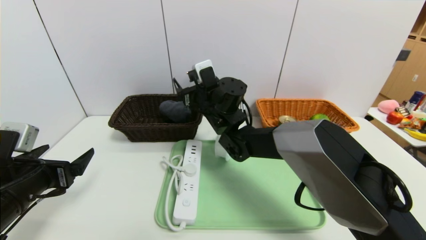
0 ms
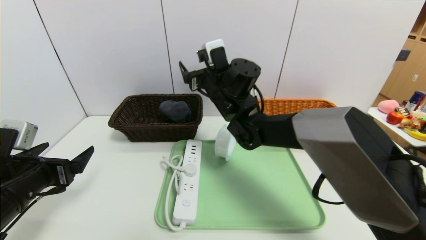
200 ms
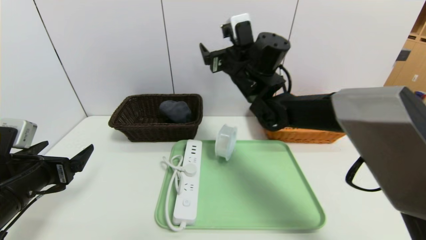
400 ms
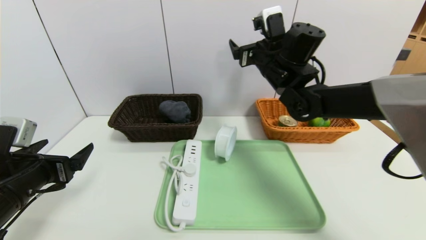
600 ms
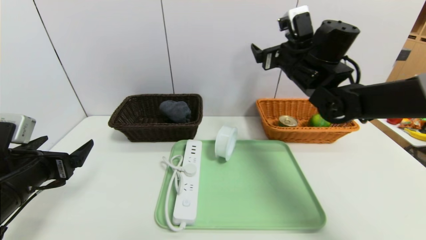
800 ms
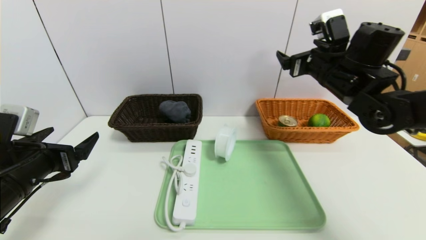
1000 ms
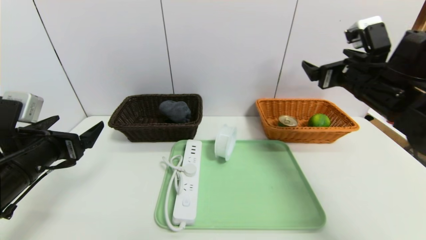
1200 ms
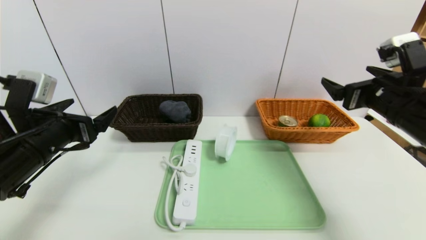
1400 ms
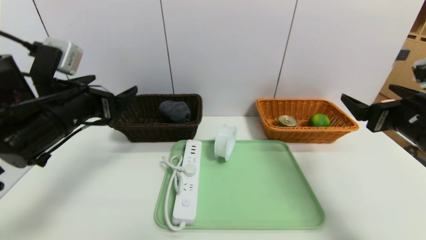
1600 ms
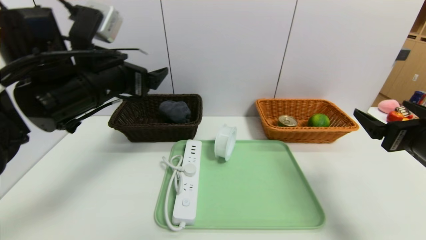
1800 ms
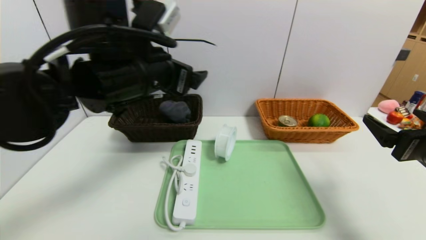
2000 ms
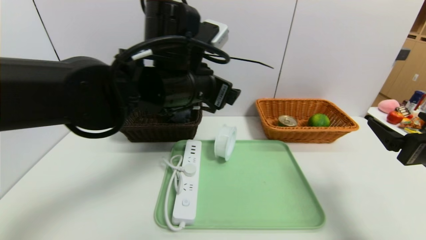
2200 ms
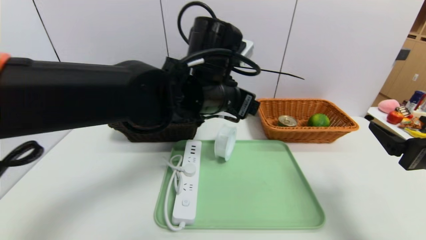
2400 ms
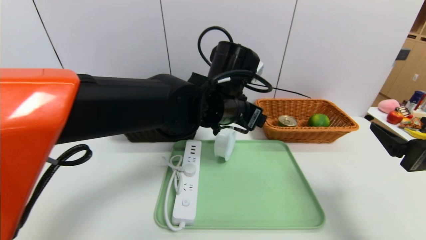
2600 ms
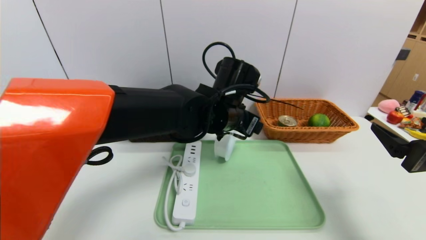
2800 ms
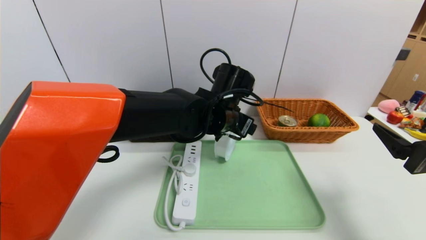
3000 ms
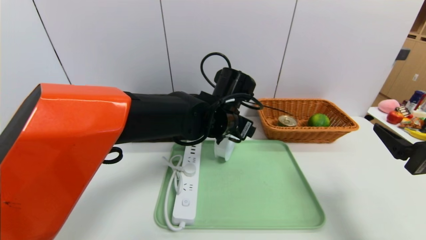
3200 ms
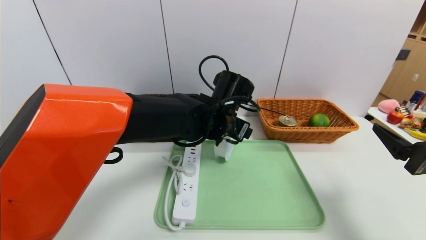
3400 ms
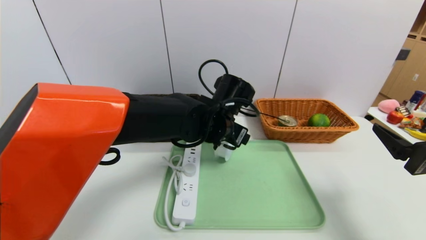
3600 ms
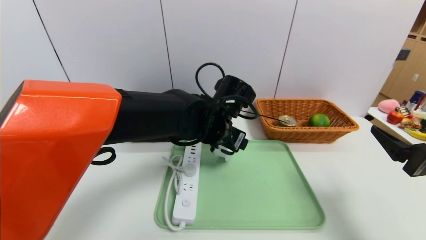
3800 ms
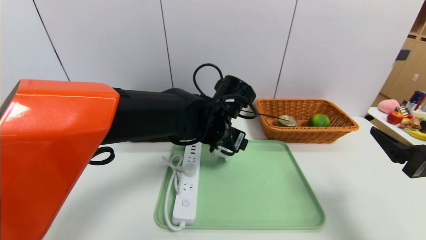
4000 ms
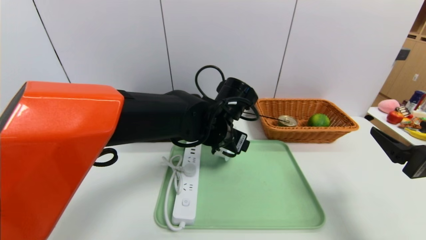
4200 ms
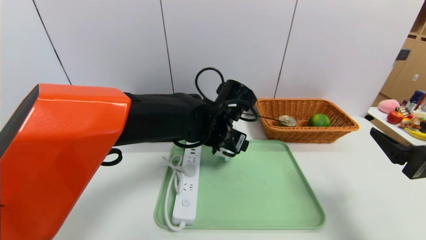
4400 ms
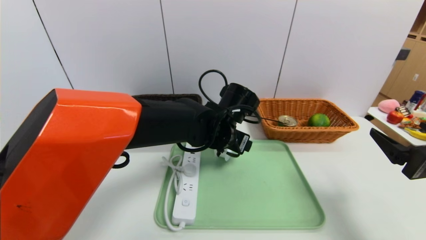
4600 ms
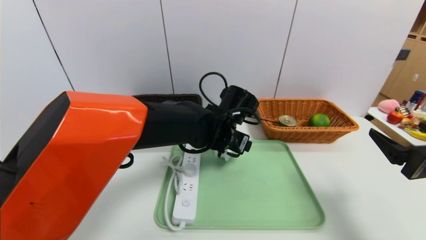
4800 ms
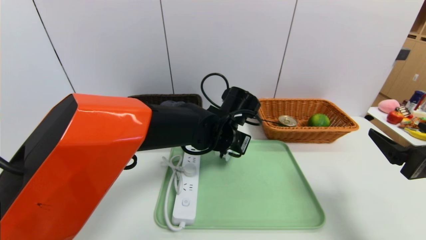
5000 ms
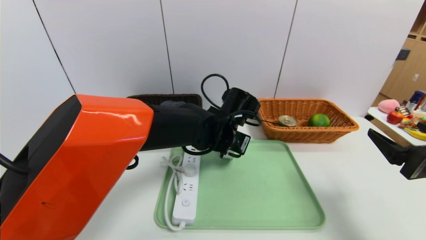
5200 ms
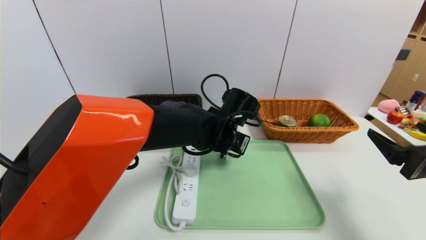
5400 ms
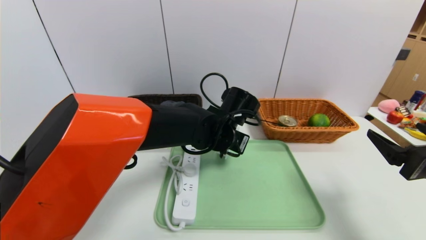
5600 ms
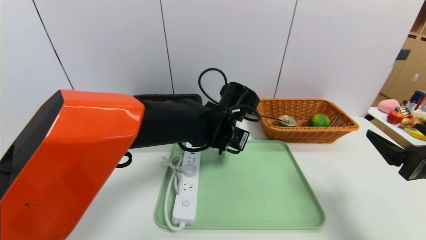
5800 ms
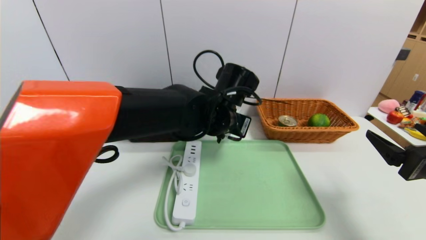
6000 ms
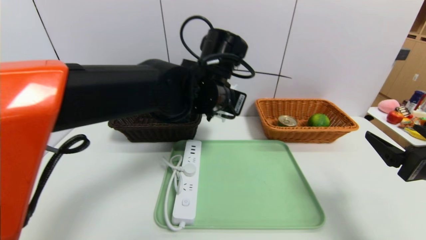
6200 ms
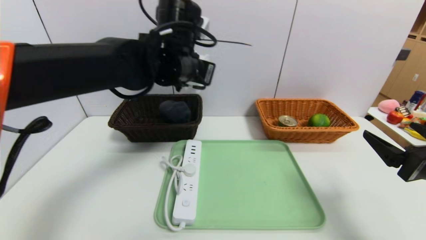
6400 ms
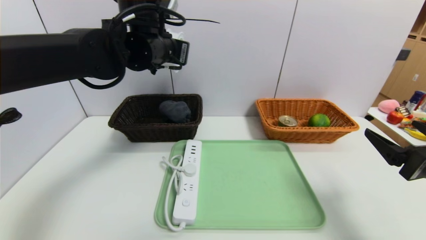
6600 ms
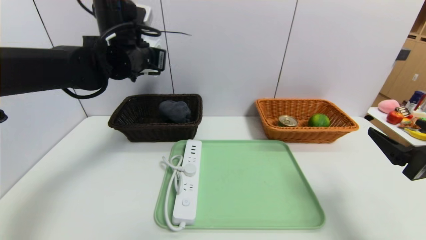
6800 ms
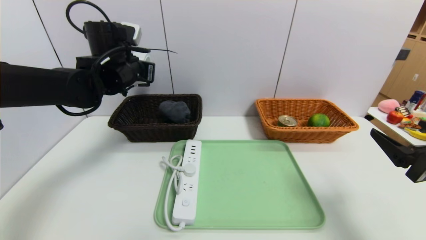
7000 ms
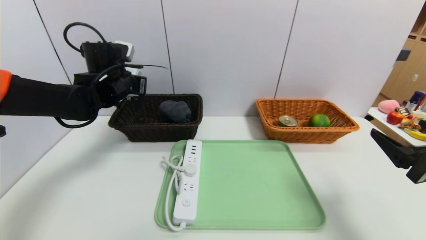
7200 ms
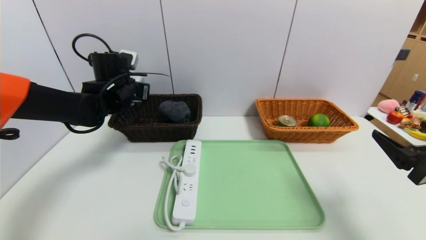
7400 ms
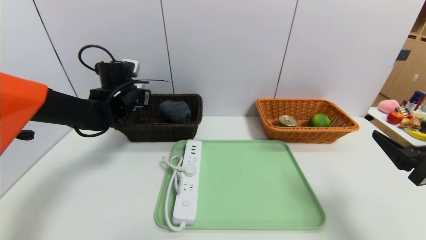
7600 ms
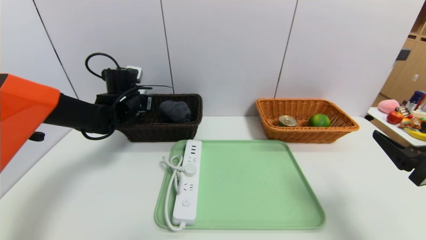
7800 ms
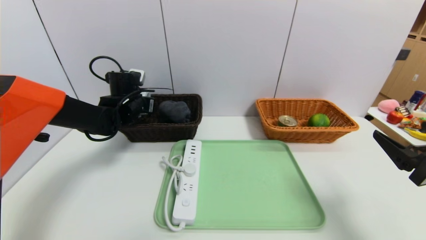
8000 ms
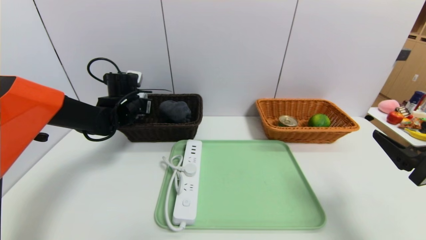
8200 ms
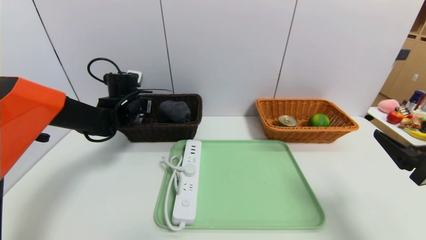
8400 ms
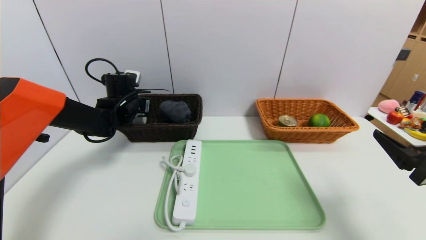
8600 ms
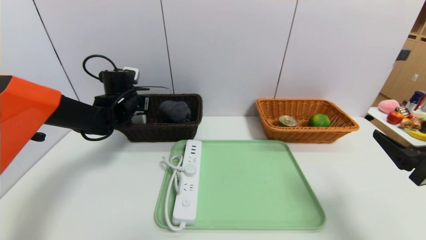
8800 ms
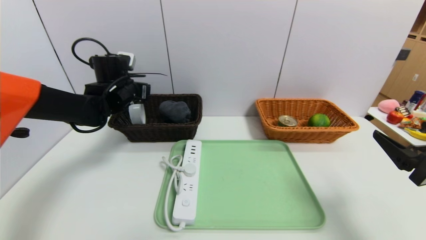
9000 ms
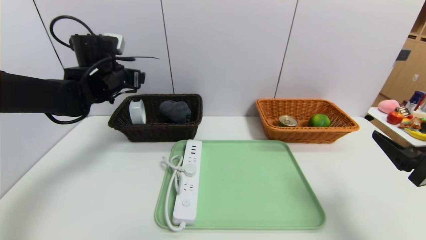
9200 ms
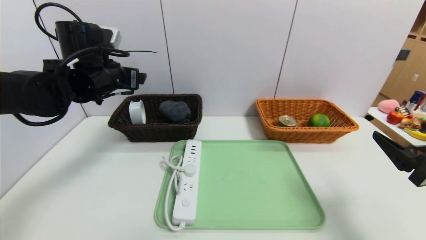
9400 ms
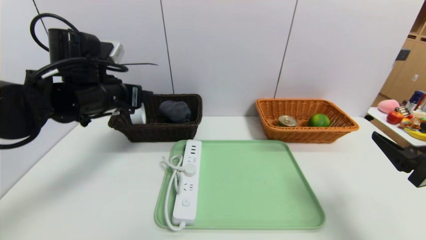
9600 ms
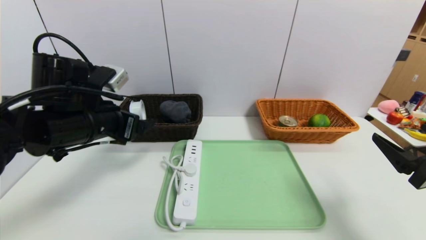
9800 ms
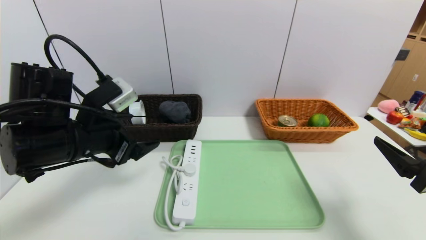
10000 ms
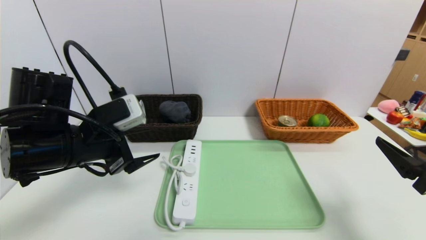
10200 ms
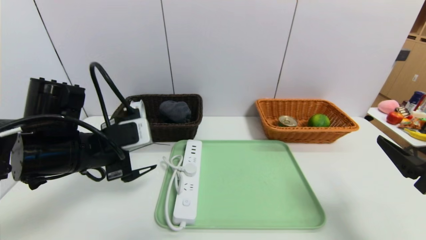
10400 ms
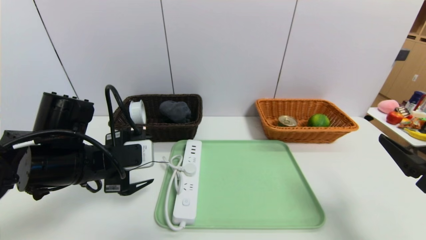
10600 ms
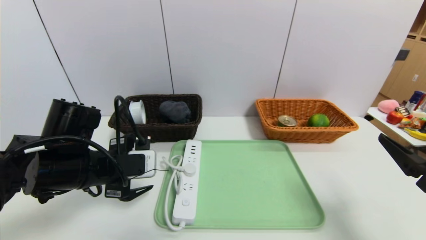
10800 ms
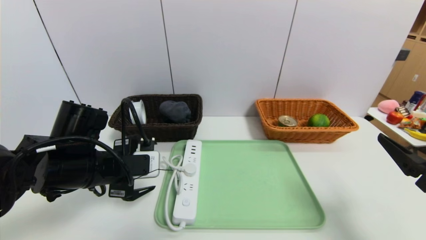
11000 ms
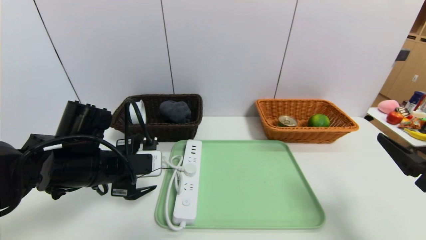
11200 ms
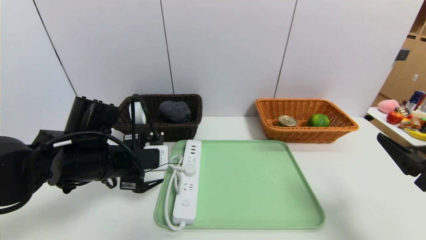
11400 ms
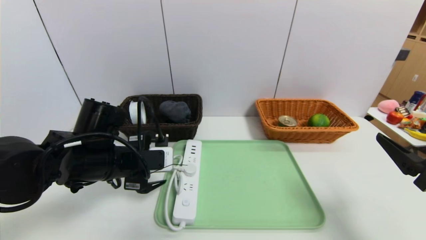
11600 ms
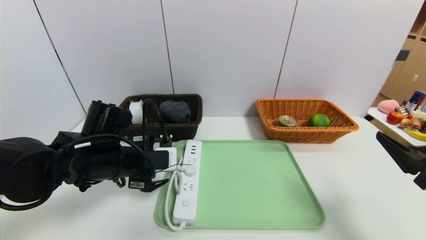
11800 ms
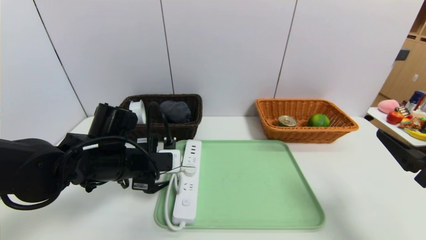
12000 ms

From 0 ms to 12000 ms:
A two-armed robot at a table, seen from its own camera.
Task of the whole recording: place the food in the right basket with the right gripper, and place the non food items in the left basket with the left gripper.
Step, from 0 ms to 8600 ms: Grasp the tape and put it in the left basket.
From 0 ms to 1600 ms: The right gripper moves to the right and backward, some 35 cm. The left gripper heads upward, to the right and forward, covering approximately 15 cm.
From 1600 ms to 3000 ms: The right gripper goes some 5 cm backward; the left gripper heads to the right, covering some 25 cm.
From 3000 ms to 4400 ms: The grippers make only small movements.
From 4400 ms to 6000 ms: The left gripper closes its fingers.
From 6000 ms to 7600 ms: The left gripper is displaced to the left and forward by roughly 25 cm.
From 7600 ms to 9000 ms: The left gripper opens its fingers.
From 9000 ms to 10400 ms: The left gripper moves backward, roughly 20 cm.
From 10400 ms to 12000 ms: The left gripper goes approximately 5 cm downward.

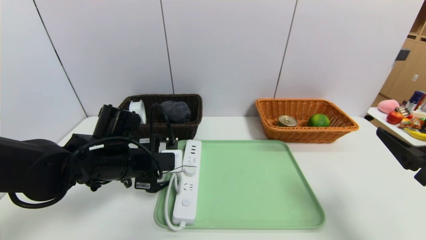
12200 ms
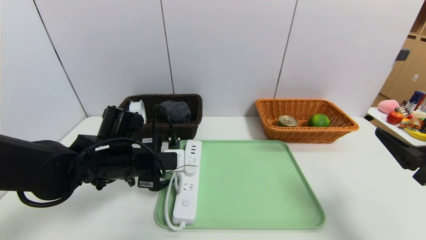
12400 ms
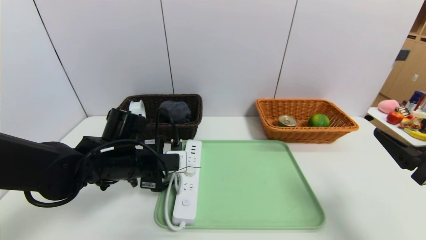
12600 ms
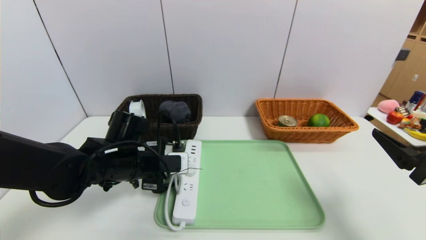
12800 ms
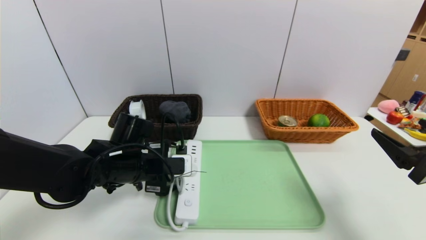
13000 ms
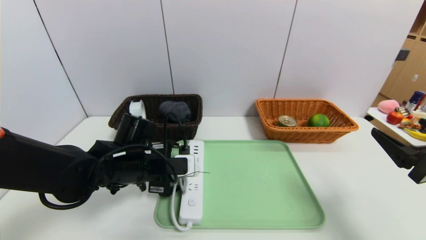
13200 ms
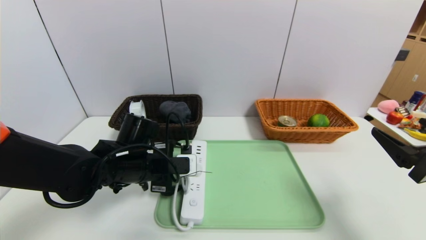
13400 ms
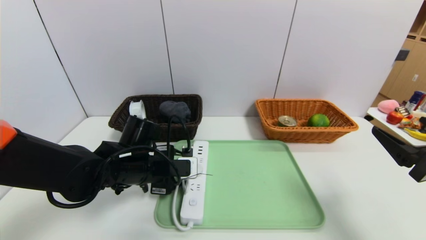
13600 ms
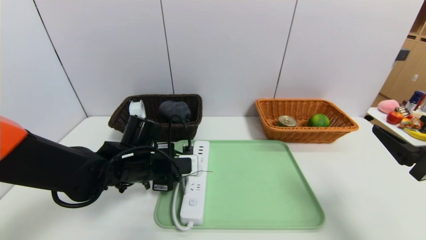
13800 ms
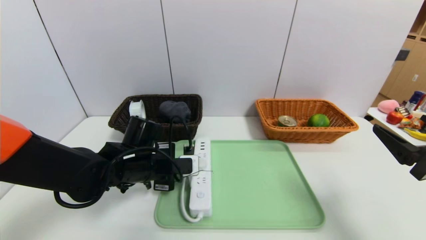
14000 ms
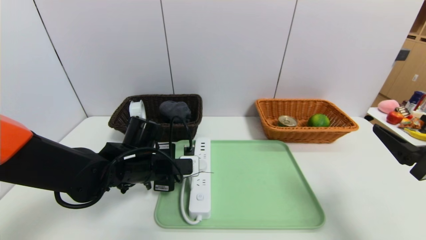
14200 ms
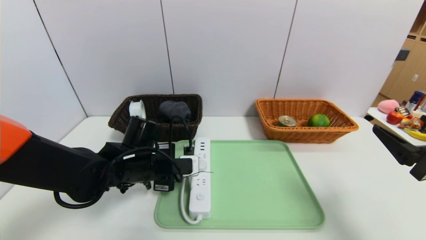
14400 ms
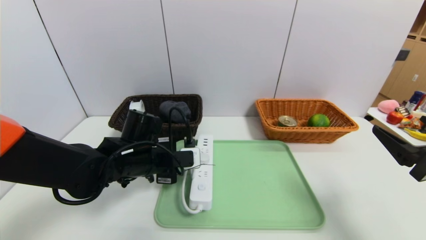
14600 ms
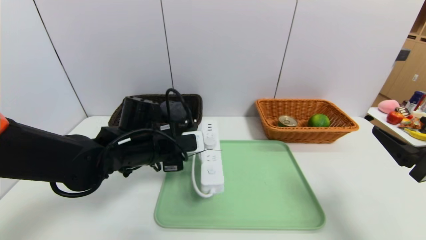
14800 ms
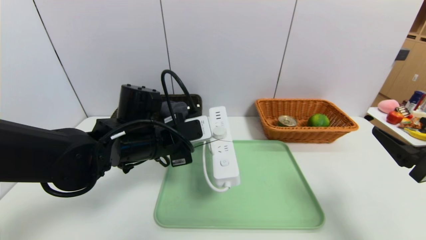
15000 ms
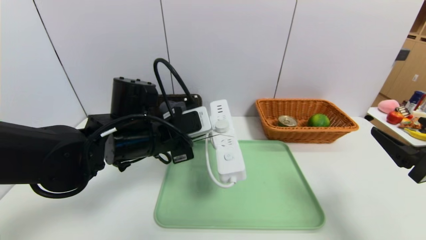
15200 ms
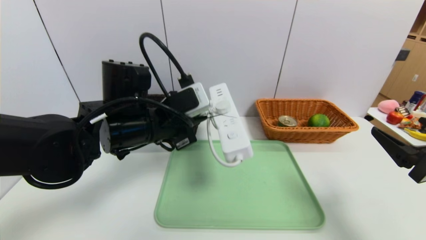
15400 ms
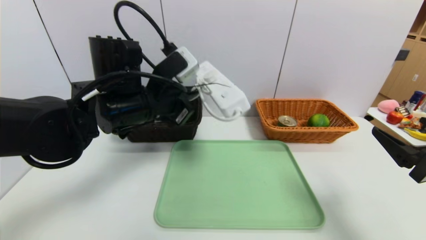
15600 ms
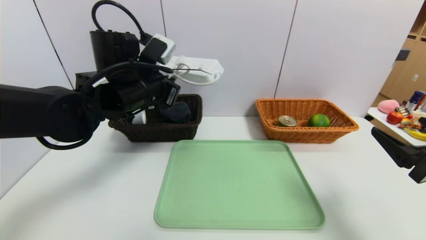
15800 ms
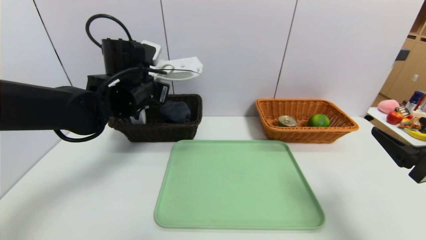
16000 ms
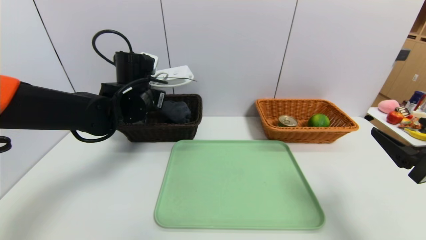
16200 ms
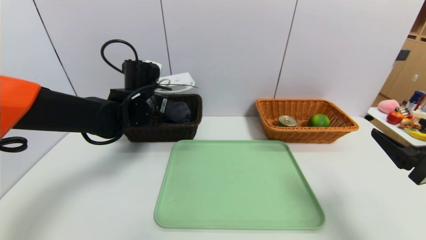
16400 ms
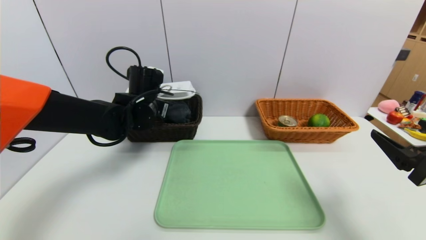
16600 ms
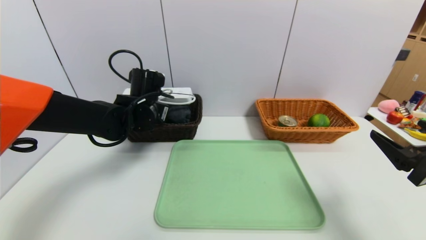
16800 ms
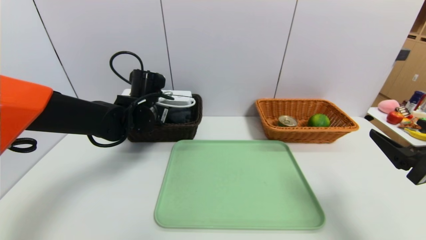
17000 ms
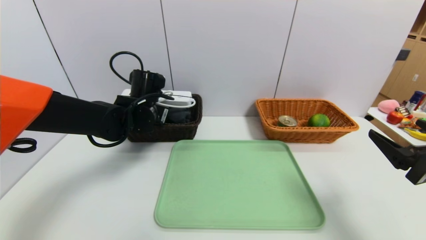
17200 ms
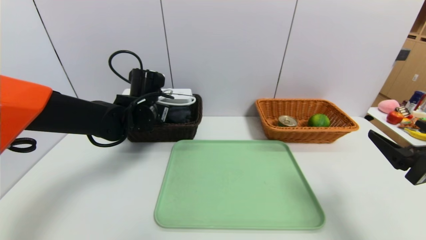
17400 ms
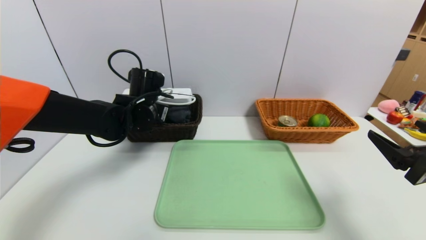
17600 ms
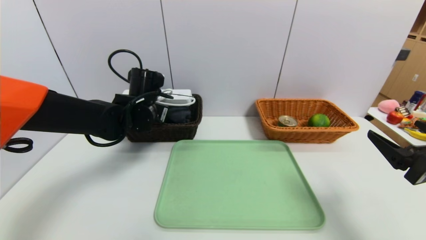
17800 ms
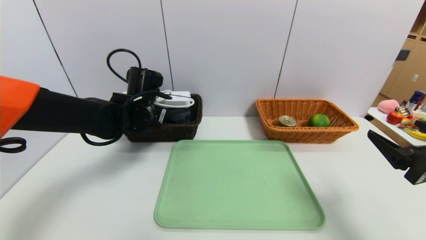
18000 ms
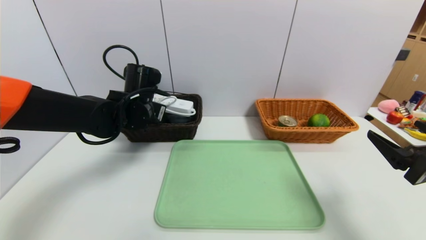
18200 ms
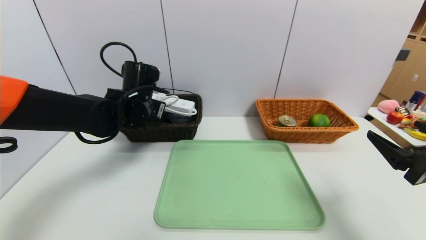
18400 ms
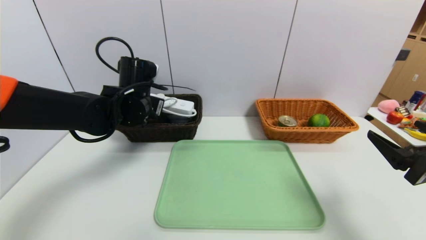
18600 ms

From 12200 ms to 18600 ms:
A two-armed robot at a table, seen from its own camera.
Task of the whole recording: place the food in the right basket with the right gripper, and place the non food items in the left basket with the left gripper.
Step, from 12200 ms to 18200 ms: Grasp the power strip and put it in the left basket.
From 12200 ms to 13800 ms: The left gripper closes its fingers.
From 13800 ms to 15400 ms: The left gripper heads upward, covering approximately 10 cm, and closes up.
From 15400 ms to 17000 ms: The left gripper is displaced forward by about 10 cm.
From 17000 ms to 18600 ms: The left gripper opens up.
